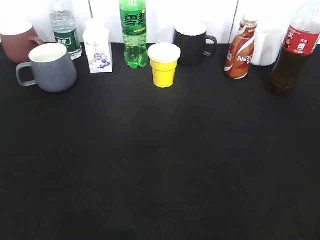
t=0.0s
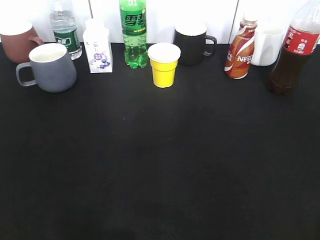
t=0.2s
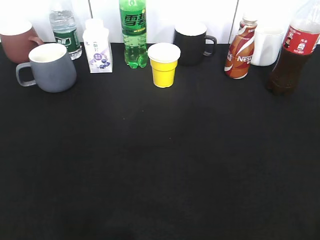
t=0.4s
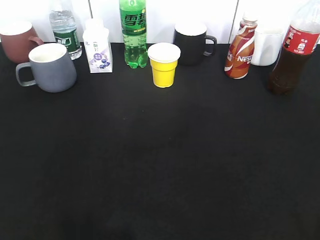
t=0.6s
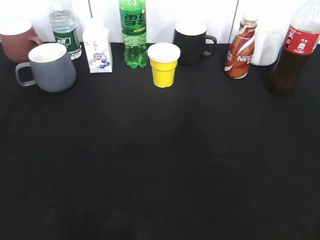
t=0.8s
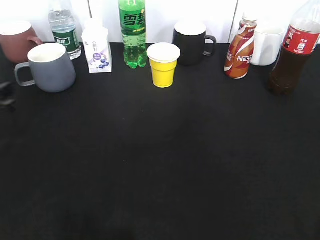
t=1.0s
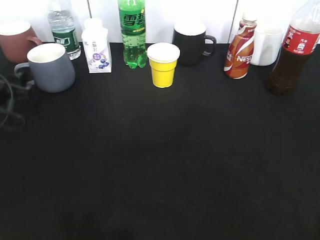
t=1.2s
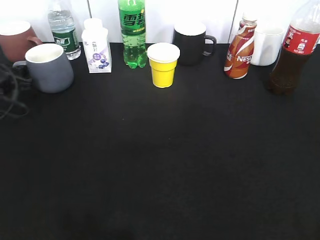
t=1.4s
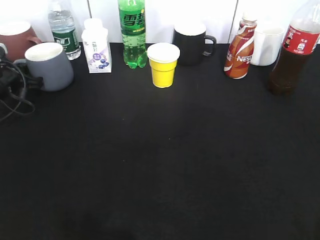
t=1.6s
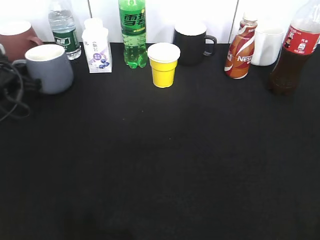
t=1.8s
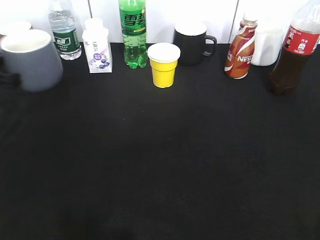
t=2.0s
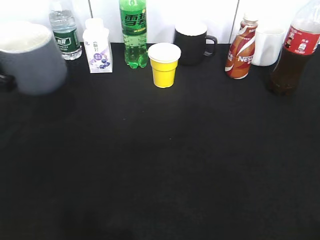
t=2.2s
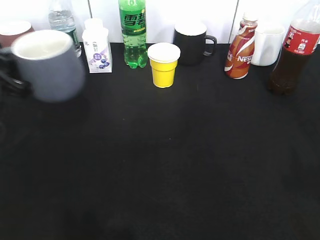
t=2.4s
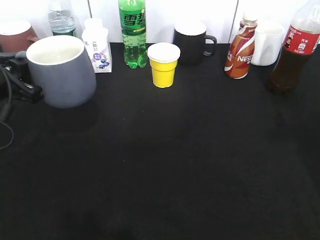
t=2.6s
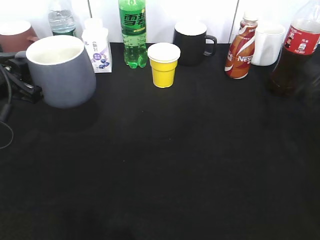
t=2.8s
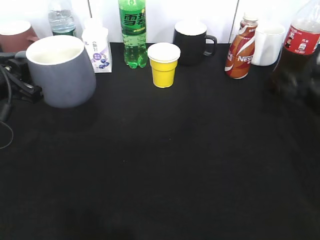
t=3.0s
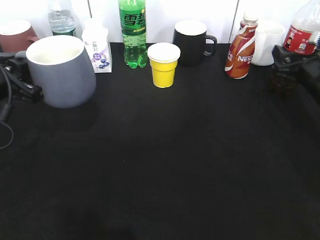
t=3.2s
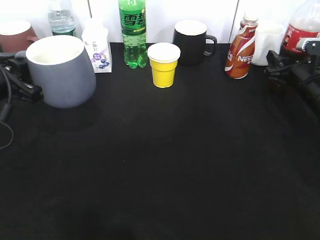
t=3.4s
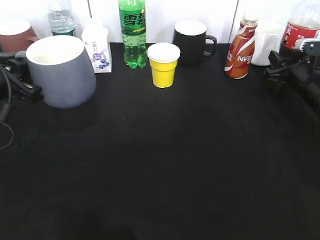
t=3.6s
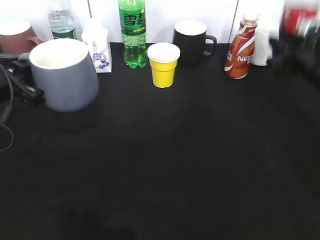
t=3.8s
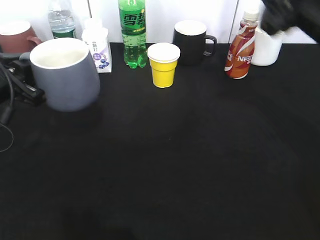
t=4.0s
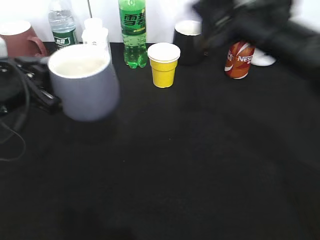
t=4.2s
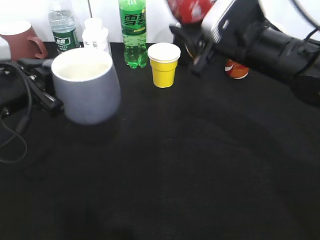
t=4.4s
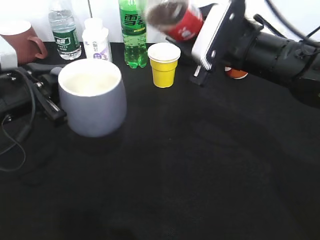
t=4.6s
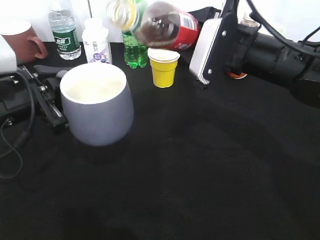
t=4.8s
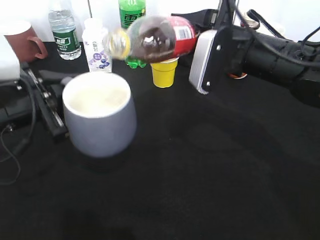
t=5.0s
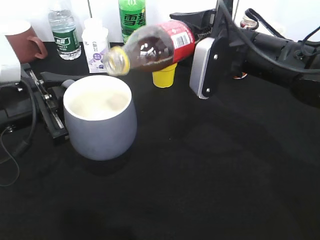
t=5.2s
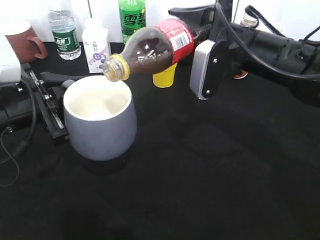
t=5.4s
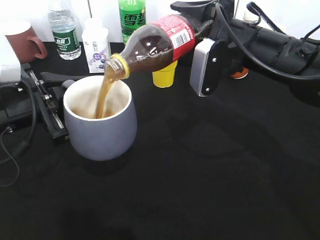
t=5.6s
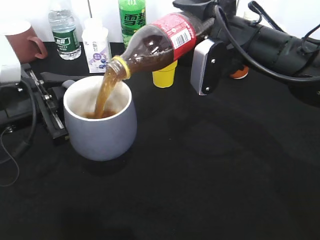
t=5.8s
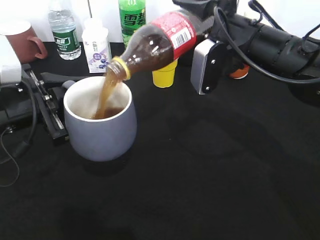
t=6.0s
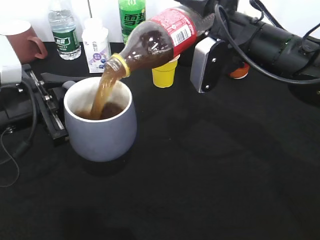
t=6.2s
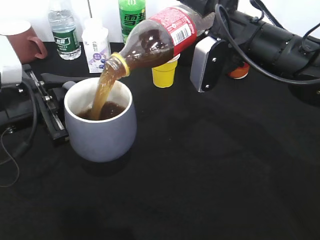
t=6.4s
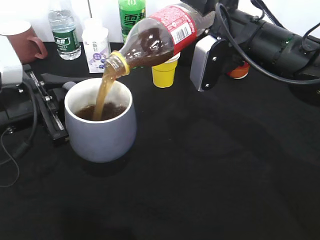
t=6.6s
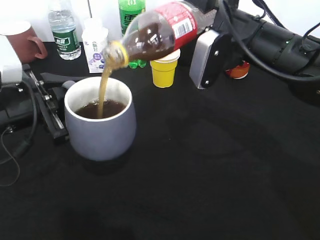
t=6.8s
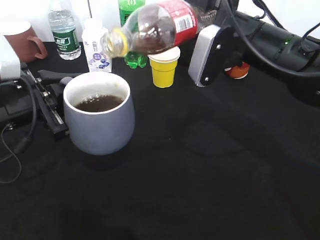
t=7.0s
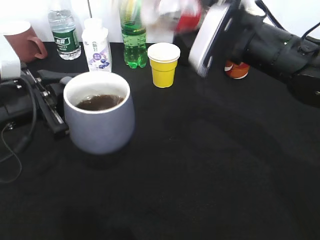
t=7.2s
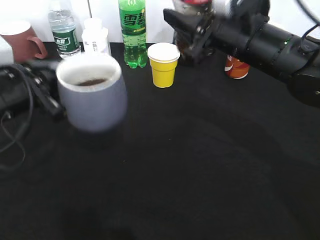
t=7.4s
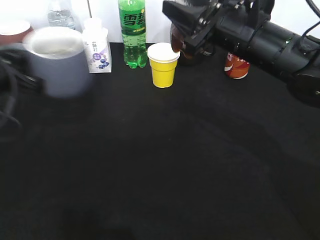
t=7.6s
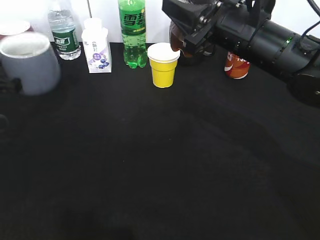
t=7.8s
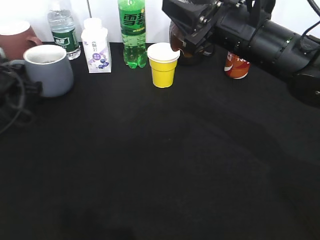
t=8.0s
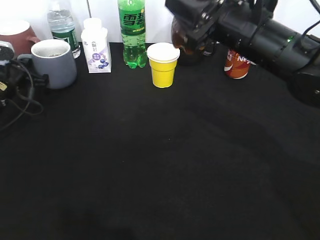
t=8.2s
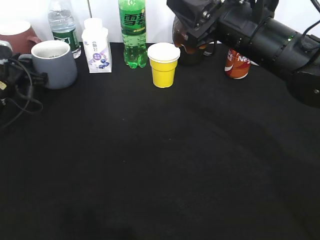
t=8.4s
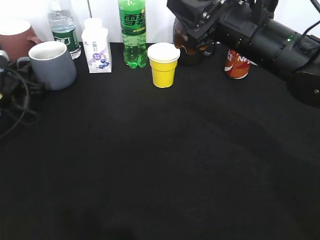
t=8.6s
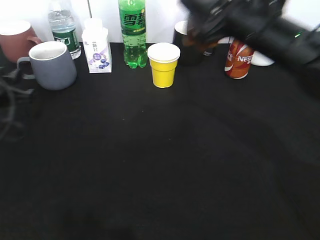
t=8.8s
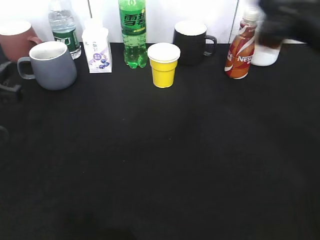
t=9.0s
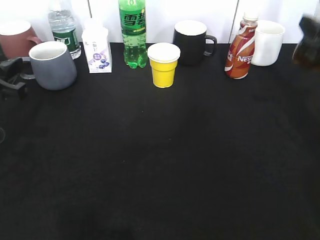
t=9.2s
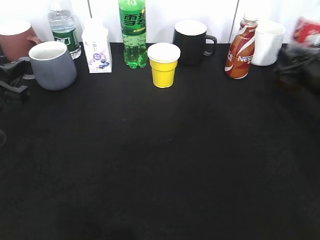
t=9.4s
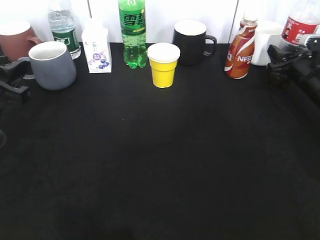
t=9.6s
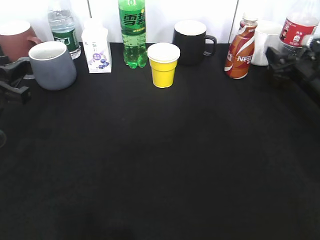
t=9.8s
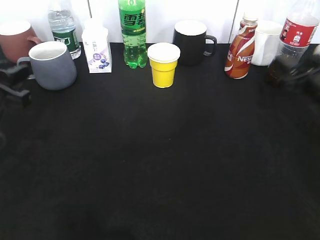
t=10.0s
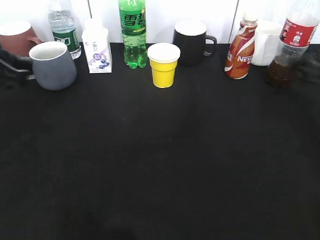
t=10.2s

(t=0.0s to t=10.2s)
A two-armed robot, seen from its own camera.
Step, t=0.0s - t=1.6s: Grasp the grey cup with left gripper.
Step, t=2.0s - t=2.6s: Lift the grey cup with left gripper.
Step, t=2.8s - t=3.6s: Grasp the bottle with cola with right gripper.
Step, t=3.8s - t=6.4s: Pour the cola from bottle to cup with right gripper.
Step, t=6.8s - t=9.0s: Place the grey cup on the table with left gripper.
Step, t=9.2s - t=10.2s: Place the cola bottle on the table with right gripper.
t=0.0s - t=1.4s: The left gripper moves forward and downward, some 40 cm, and closes up.
t=1.4s - t=3.0s: The right gripper is displaced forward and downward by roughly 35 cm, while the left gripper goes approximately 15 cm backward, upward and to the right, and closes its fingers.
t=3.0s - t=4.4s: The right gripper shifts about 20 cm to the left and upward, and closes its fingers.
t=7.2s - t=8.8s: The left gripper travels to the left, forward and downward by roughly 10 cm, and opens.
t=8.8s - t=10.2s: The right gripper travels to the right by some 15 cm, and opens up. The left gripper travels upward and backward by about 15 cm.

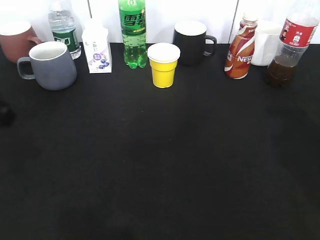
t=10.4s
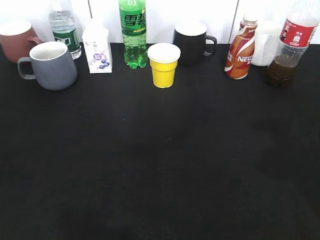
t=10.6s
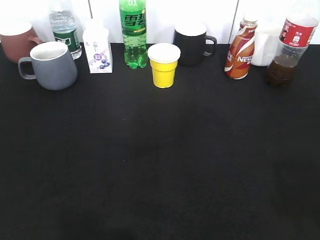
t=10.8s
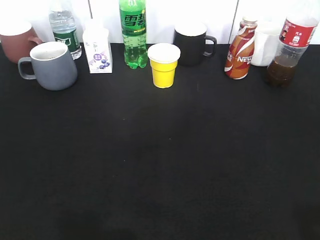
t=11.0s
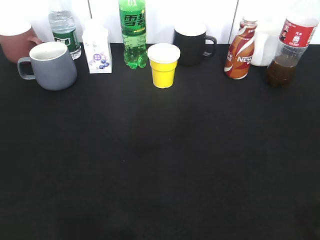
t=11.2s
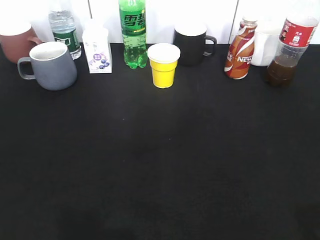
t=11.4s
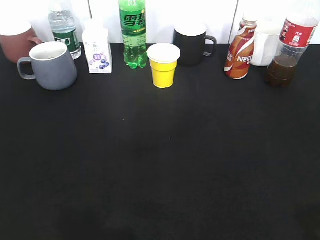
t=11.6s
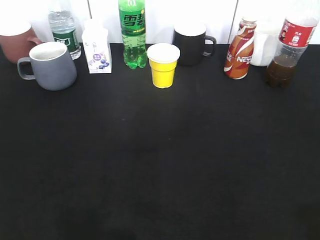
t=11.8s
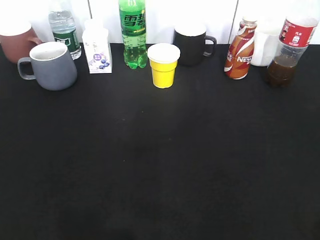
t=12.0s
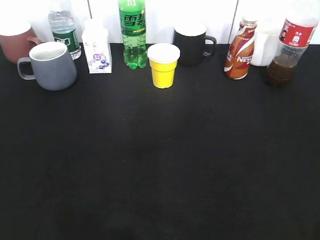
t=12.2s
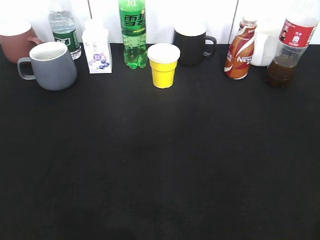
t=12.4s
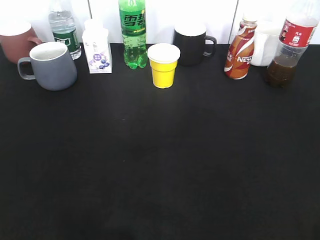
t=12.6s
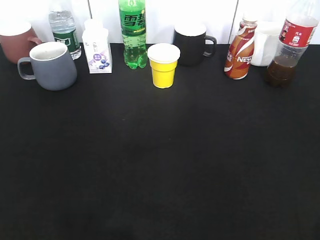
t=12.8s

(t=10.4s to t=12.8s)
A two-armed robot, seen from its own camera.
t=10.4s - t=11.6s: Both grippers travel together backward, about 20 cm. The left gripper opens.

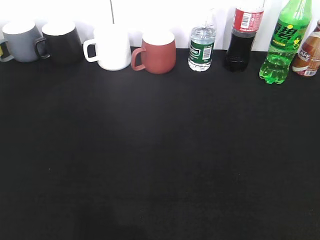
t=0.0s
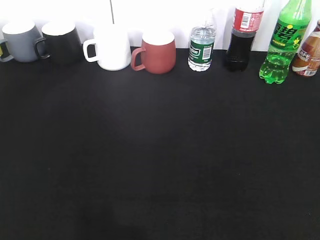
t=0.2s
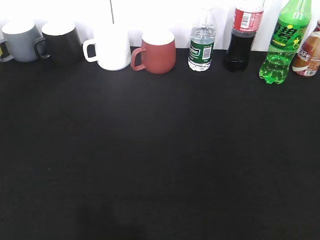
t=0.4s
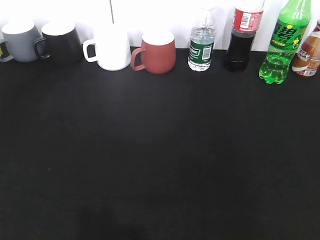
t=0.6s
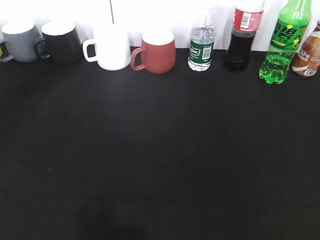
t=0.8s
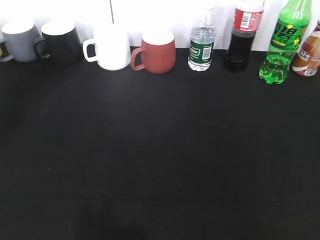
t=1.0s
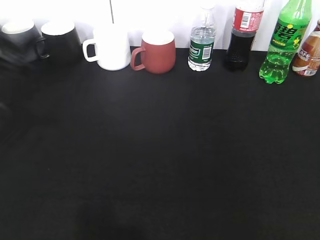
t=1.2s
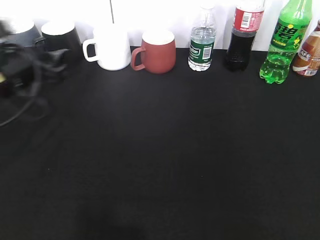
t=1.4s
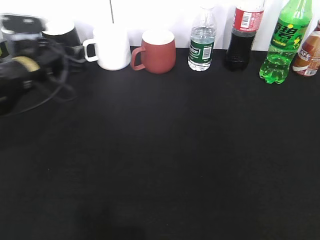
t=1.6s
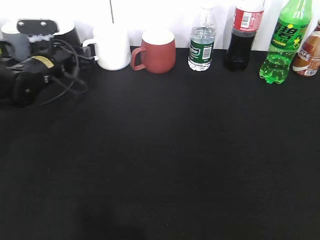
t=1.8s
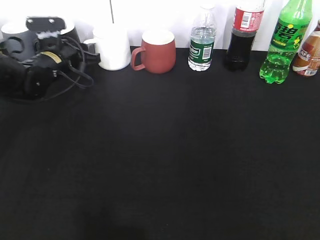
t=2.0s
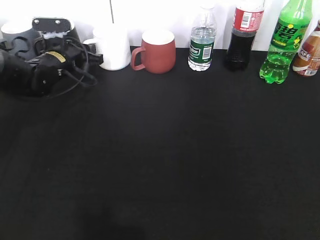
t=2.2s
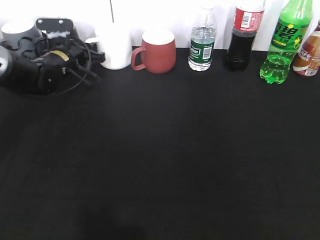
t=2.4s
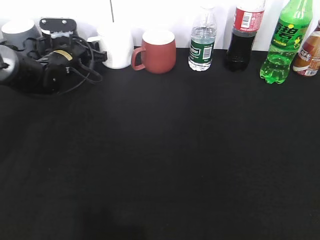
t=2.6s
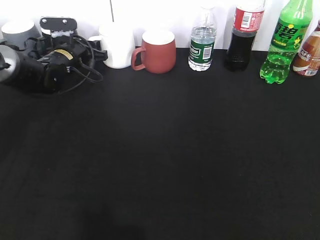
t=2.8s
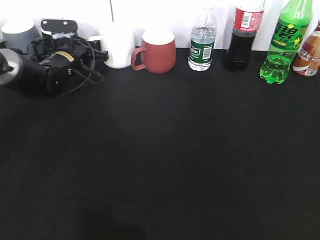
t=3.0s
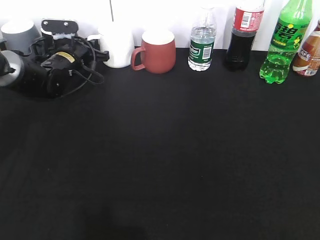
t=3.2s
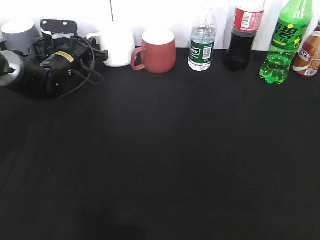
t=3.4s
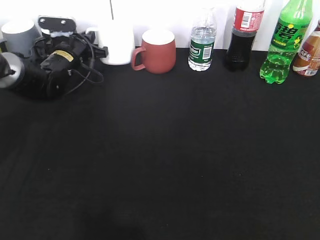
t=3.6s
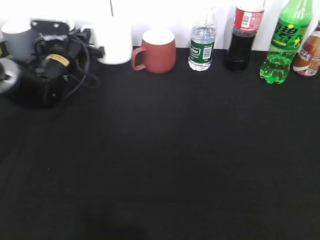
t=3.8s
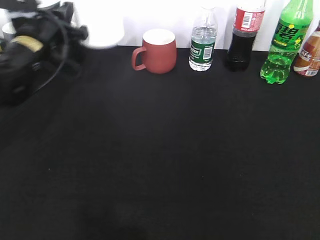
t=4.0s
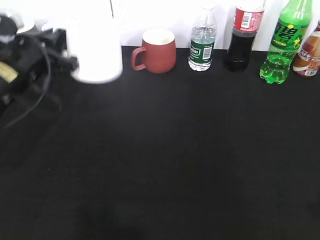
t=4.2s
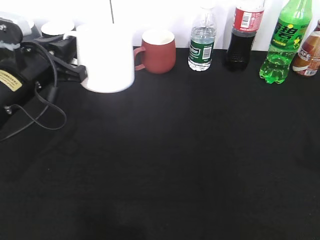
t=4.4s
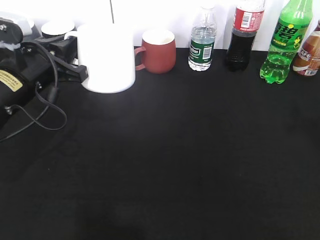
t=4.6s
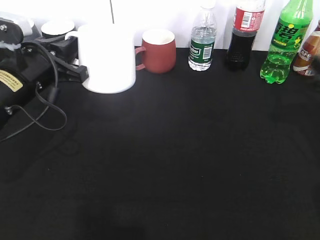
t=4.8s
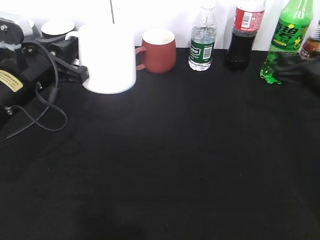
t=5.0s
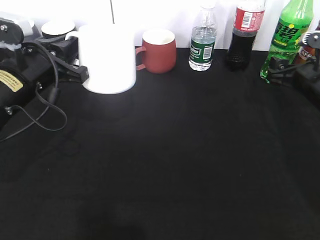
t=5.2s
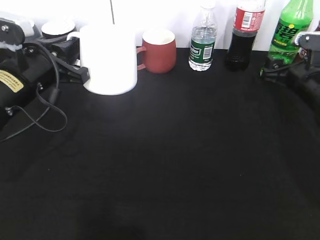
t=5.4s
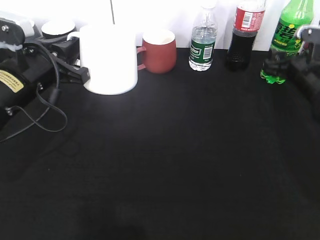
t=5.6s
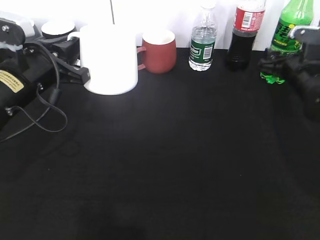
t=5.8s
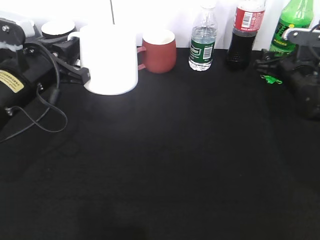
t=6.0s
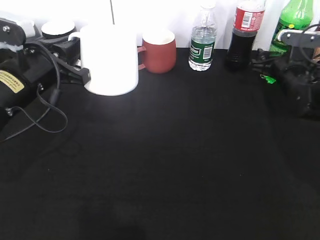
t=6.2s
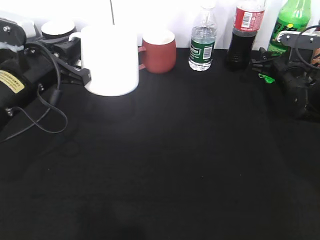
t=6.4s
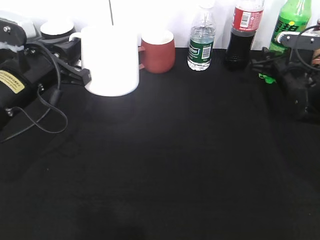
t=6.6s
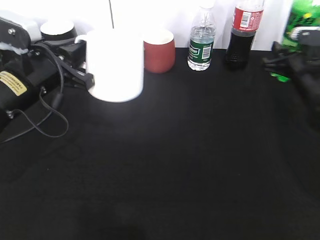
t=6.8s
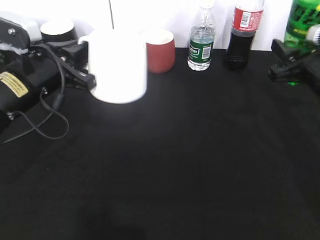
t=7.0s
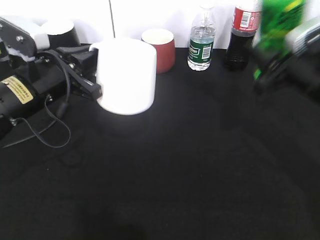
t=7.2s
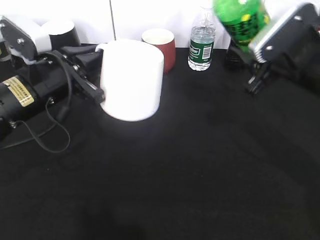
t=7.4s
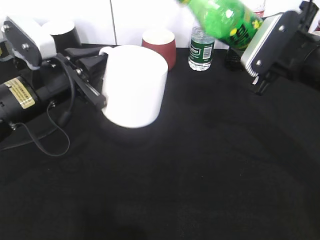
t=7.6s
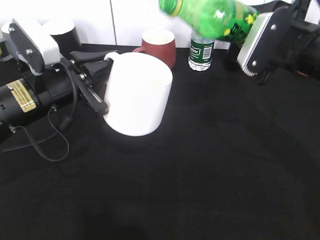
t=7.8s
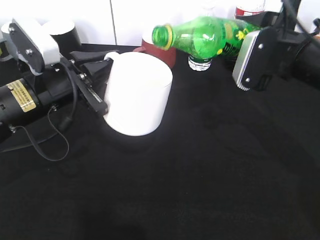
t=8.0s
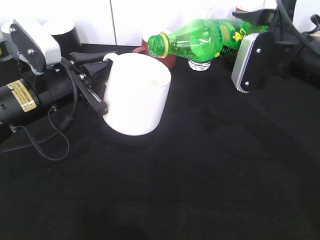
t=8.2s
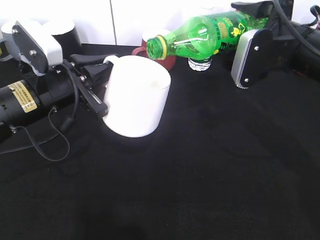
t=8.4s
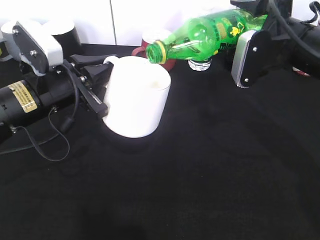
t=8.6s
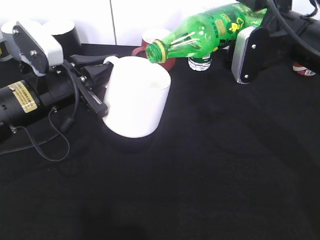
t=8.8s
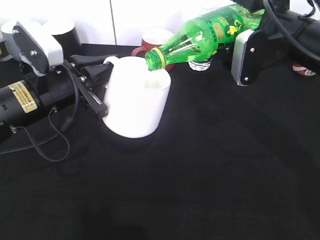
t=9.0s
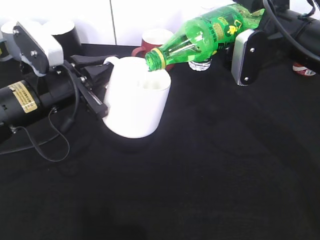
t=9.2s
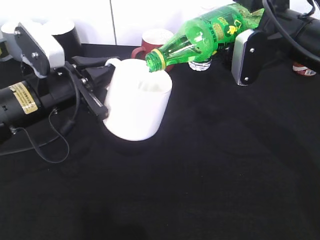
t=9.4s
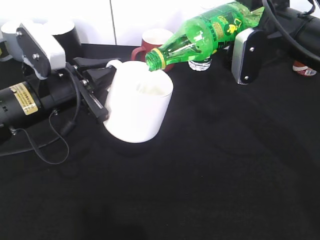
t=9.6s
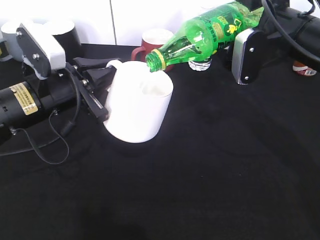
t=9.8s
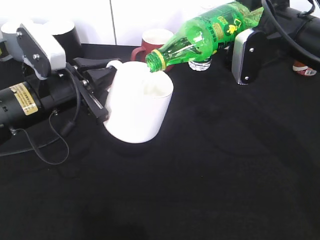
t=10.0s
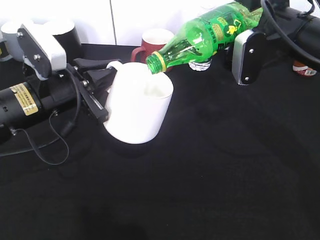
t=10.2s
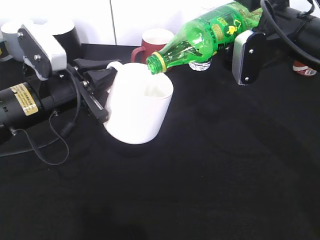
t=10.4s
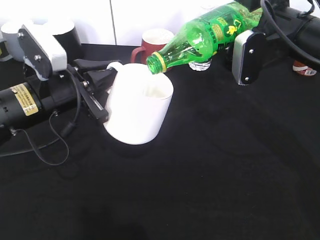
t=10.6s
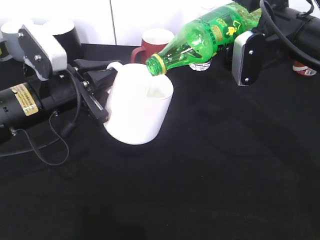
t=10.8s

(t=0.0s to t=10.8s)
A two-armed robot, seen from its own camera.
Step, t=0.0s - t=3.2s: Grasp the white cup with left gripper.
Step, t=3.4s - t=4.6s: Lift the white cup with left gripper.
Step, t=4.8s - t=6.4s: Grasp the bottle with sprite with right gripper.
t=0.0s - t=1.6s: The left gripper moves forward, about 40 cm.
t=1.6s - t=3.0s: The left gripper travels forward by roughly 10 cm.
t=3.0s - t=4.6s: The left gripper heads backward and upward, covering some 20 cm, and closes, while the right gripper heads forward, covering some 20 cm.
t=4.6s - t=6.2s: The right gripper is displaced forward and downward by approximately 25 cm.
t=6.2s - t=7.8s: The right gripper is displaced upward, backward and to the left by approximately 20 cm, and closes its fingers.
t=9.2s - t=10.8s: The two grippers keep their place.
